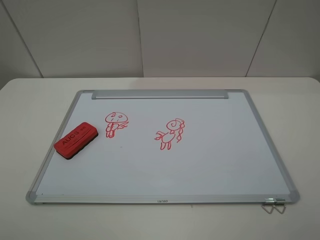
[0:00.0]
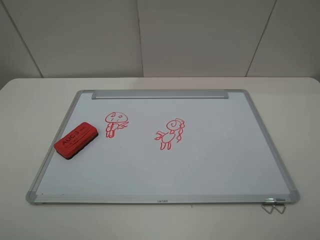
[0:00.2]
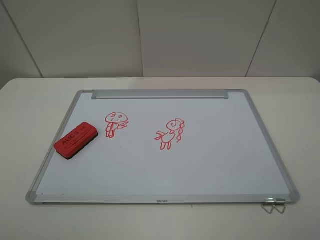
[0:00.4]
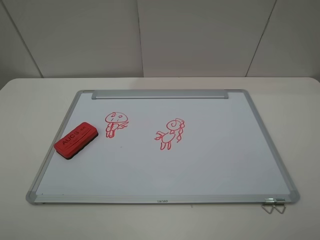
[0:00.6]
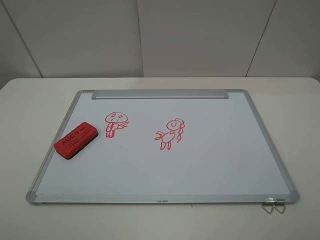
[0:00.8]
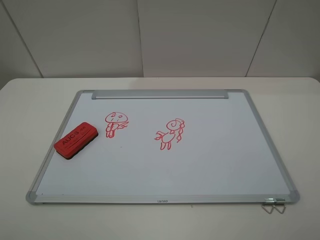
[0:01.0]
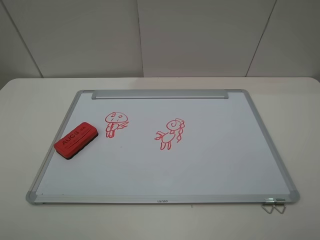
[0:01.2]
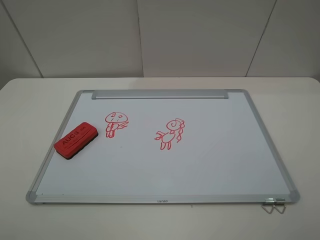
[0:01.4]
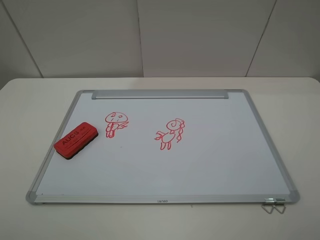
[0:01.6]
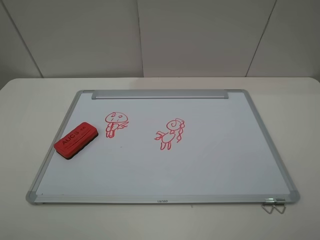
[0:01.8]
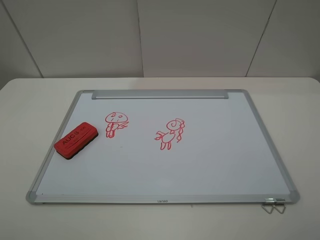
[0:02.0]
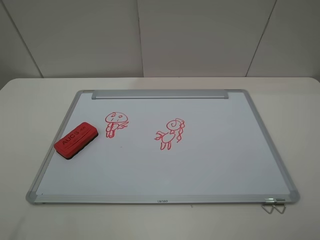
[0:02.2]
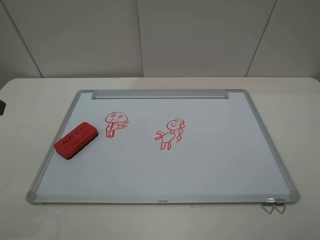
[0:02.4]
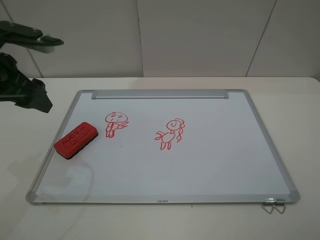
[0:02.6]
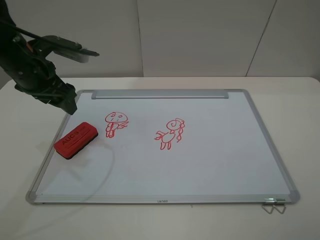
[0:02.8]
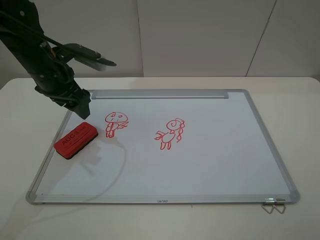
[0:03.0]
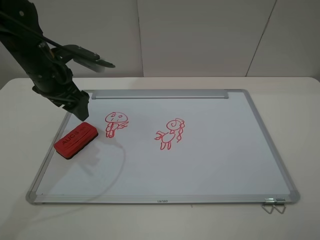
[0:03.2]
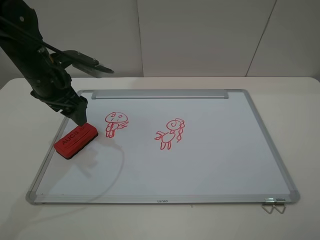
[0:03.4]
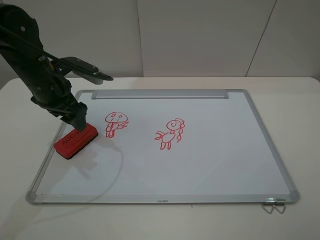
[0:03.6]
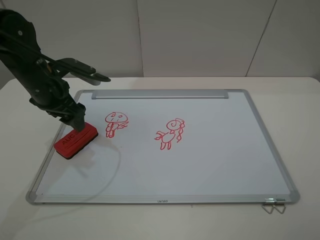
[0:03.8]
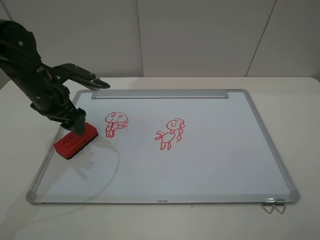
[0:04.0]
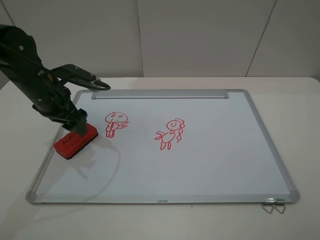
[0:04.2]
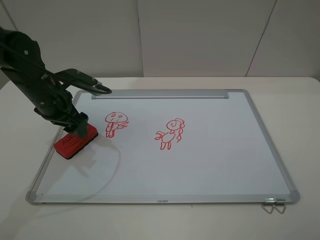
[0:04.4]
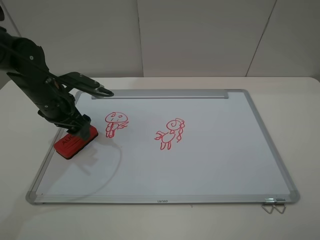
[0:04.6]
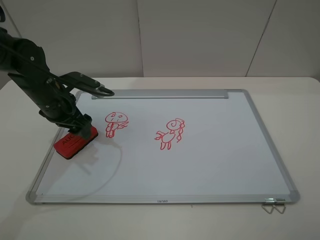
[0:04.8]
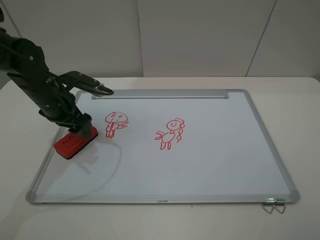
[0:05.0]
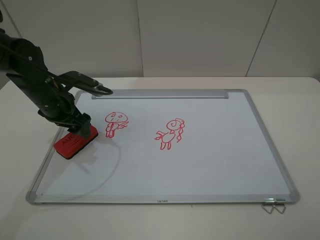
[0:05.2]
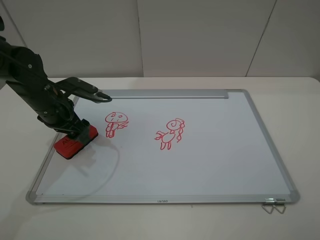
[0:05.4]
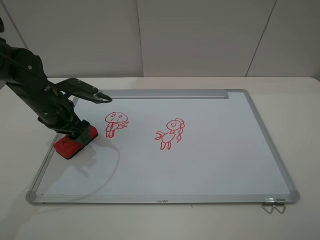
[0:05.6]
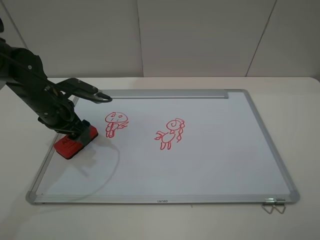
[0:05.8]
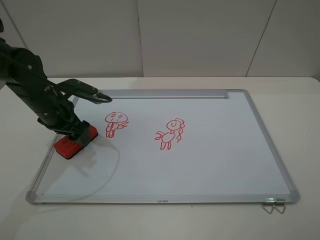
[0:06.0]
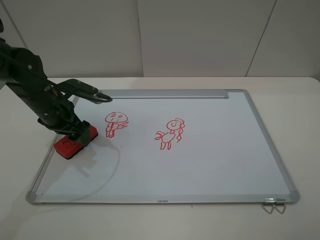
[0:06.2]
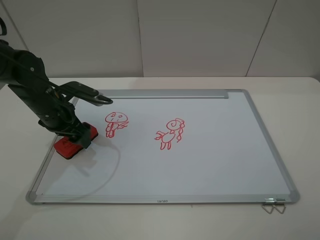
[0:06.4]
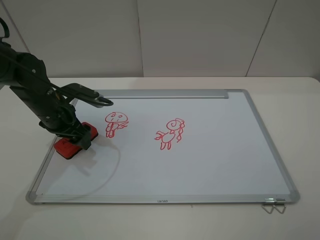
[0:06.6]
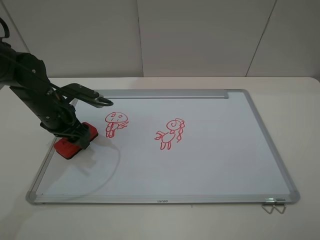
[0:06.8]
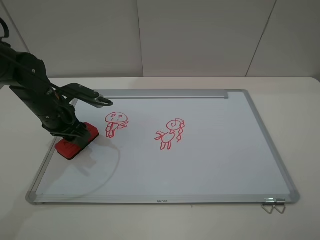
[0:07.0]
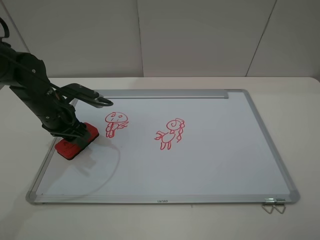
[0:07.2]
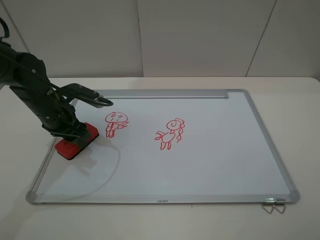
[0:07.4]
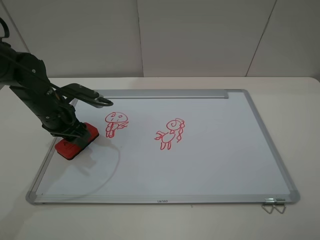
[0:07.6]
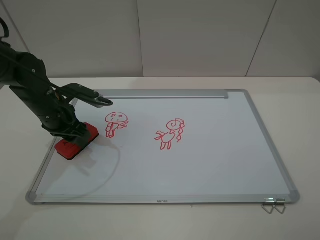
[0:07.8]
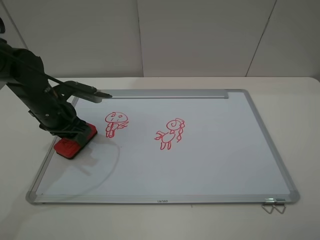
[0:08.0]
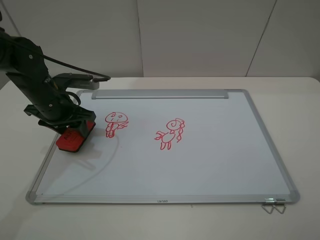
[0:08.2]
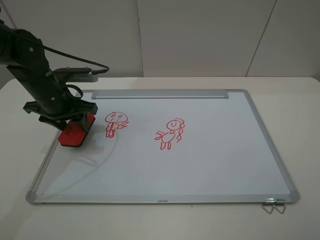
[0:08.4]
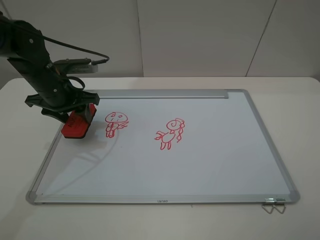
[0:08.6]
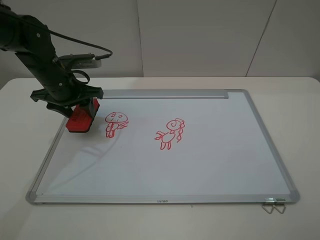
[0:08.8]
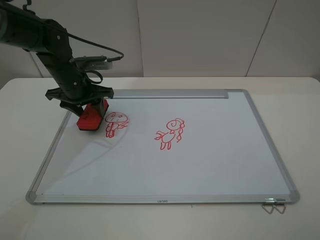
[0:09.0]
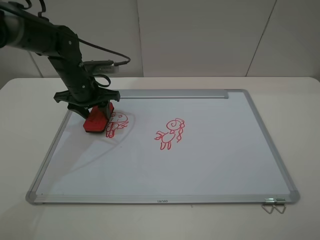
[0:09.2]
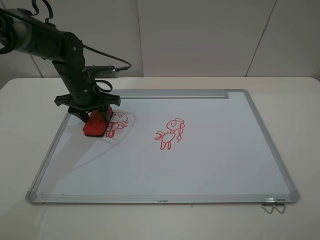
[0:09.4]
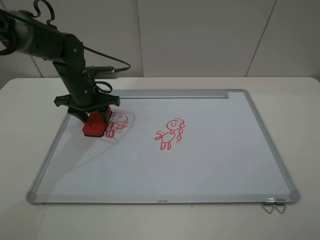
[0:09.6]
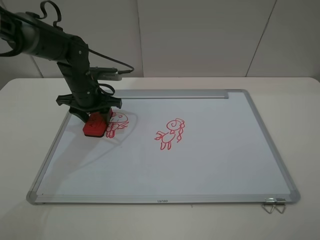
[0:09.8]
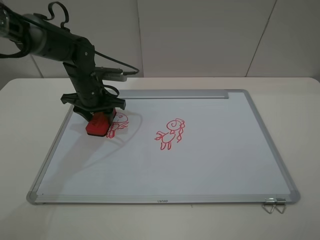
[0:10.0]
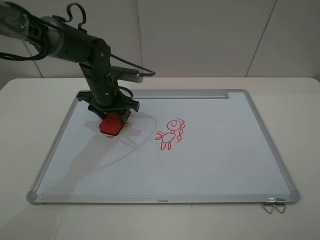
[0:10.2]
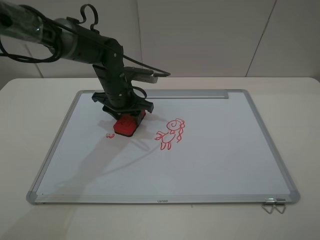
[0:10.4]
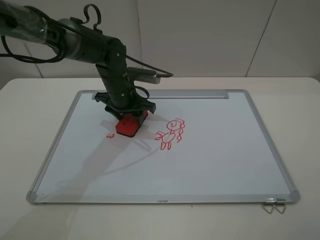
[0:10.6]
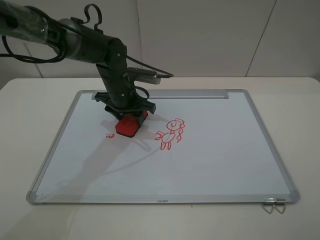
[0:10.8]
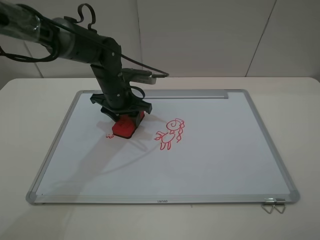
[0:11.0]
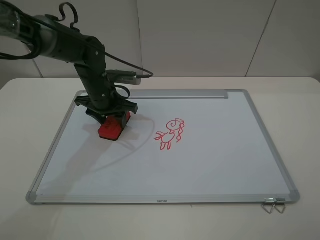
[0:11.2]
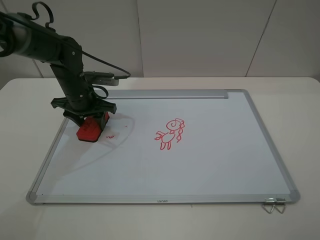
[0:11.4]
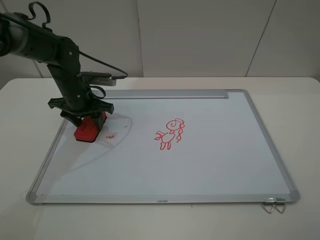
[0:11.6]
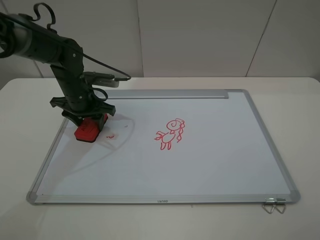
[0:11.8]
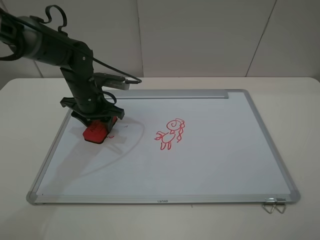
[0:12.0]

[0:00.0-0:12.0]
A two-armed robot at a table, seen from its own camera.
Step, 0:00.0 to 0:06.8: Grasp the eraser with the left gripper.
0:00.0 to 0:01.6: Both grippers stay put.
0:01.6 to 0:03.0: The left gripper shifts roughly 35 cm forward.
0:03.0 to 0:04.4: The left gripper is displaced downward by some 5 cm.
0:04.4 to 0:06.0: The grippers stay close to where they were, moving slightly.
0:06.0 to 0:07.6: The left gripper closes up.
0:07.6 to 0:09.0: The left gripper moves forward, approximately 5 cm.
0:09.0 to 0:10.4: The left gripper travels to the right by approximately 10 cm.
0:10.4 to 0:12.0: The left gripper moves to the left, approximately 5 cm.

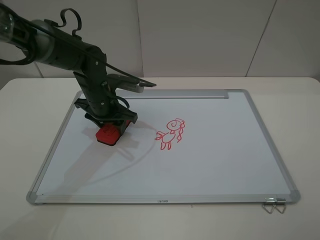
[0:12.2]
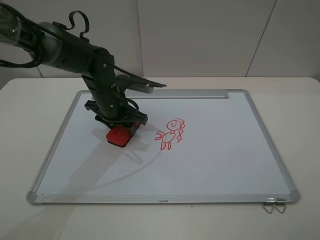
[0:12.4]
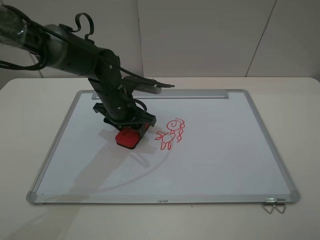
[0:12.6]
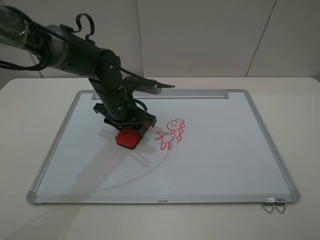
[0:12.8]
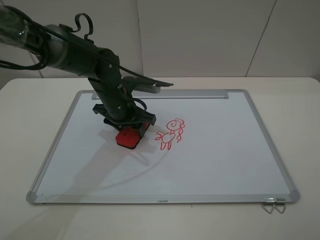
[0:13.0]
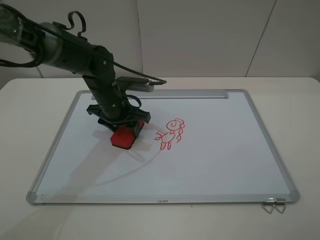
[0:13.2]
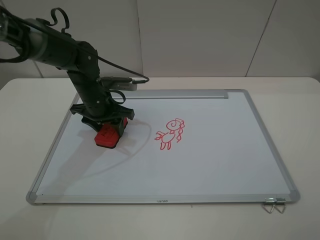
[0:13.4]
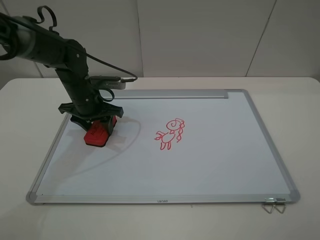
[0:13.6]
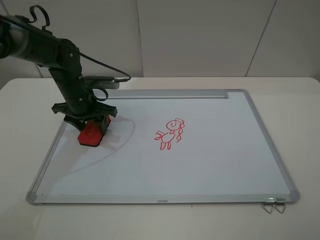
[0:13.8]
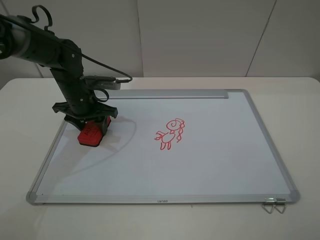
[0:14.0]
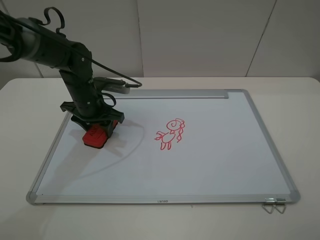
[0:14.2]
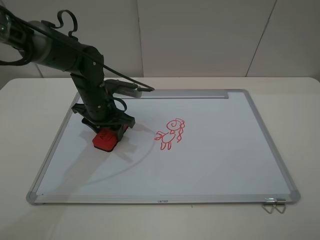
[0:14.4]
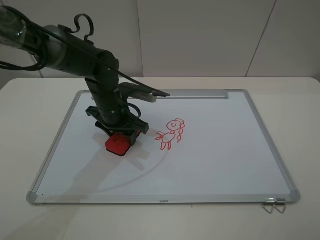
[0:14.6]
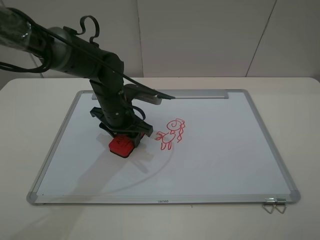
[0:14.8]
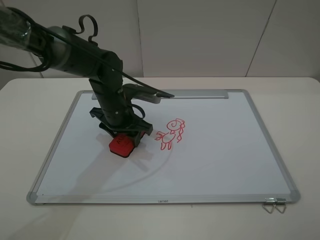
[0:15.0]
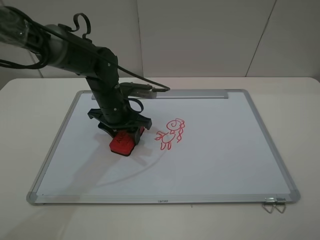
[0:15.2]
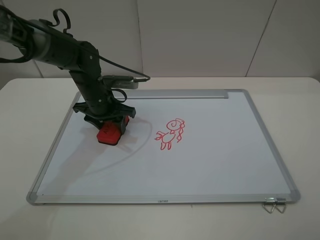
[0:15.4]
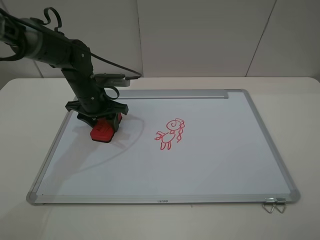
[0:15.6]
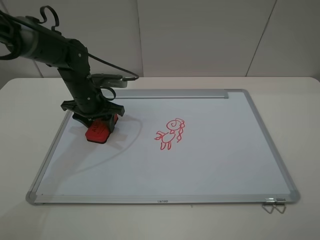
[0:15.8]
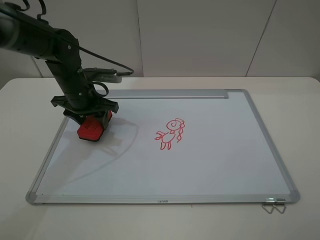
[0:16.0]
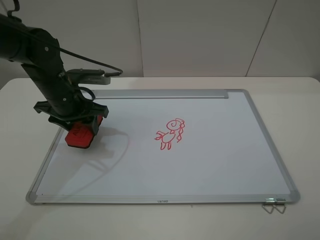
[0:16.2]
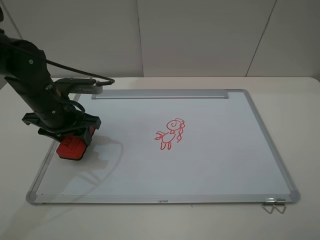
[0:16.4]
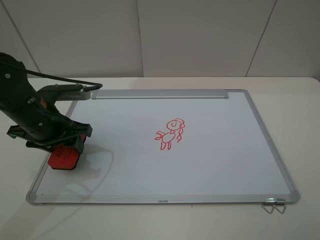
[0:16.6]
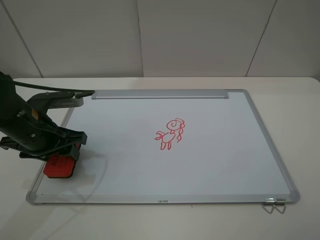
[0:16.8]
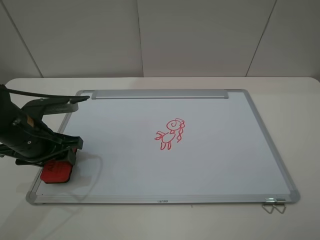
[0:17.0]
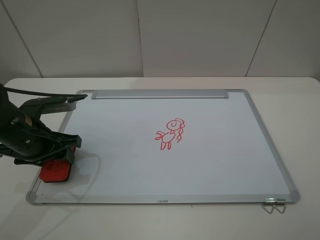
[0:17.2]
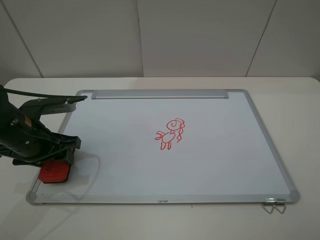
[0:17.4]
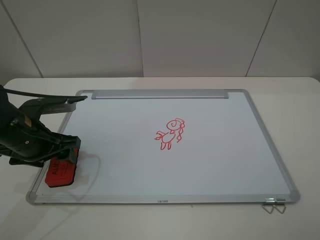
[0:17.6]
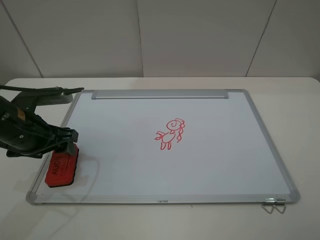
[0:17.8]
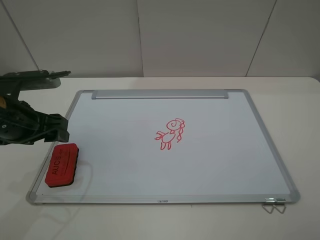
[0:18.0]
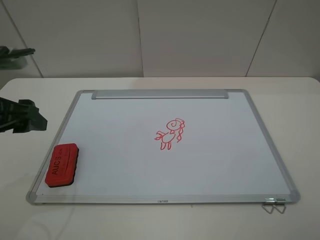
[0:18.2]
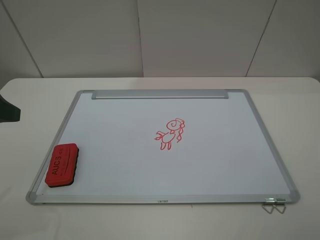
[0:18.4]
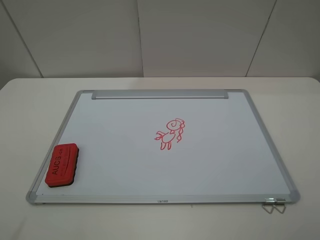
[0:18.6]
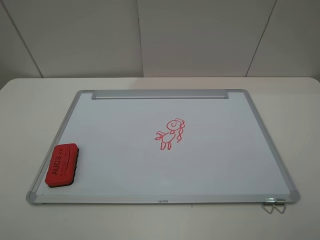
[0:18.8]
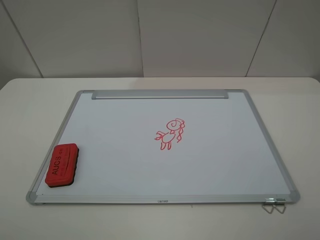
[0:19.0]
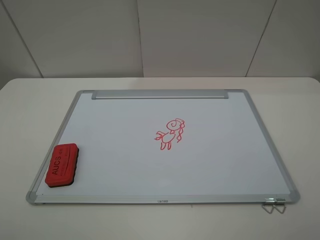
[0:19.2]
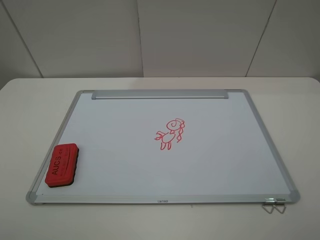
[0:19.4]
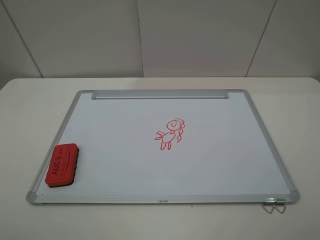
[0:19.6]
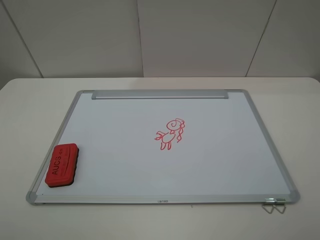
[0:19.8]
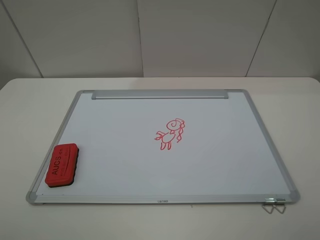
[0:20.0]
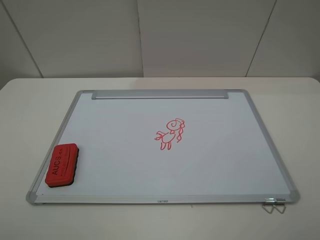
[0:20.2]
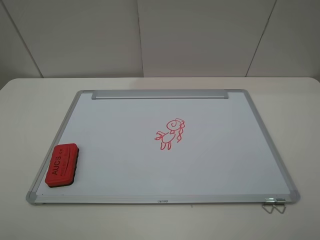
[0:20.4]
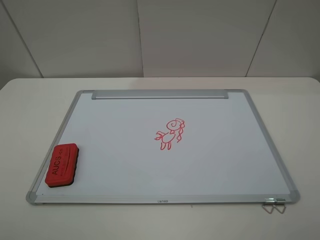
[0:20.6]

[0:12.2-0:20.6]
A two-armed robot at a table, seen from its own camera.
Step, 0:12.2 to 0:16.0: Grasp the eraser and wipe the blackboard with the left gripper.
Step, 0:16.2 to 0:17.8: Place the eraser with the left gripper.
0:12.2 to 0:13.6: The left gripper travels to the left by approximately 5 cm.
0:13.6 to 0:15.0: The left gripper goes about 10 cm to the right.
0:15.0 to 0:16.4: The left gripper is displaced to the left and upward by roughly 10 cm.
0:16.4 to 0:17.8: The left gripper travels backward by roughly 5 cm, and opens up.
0:17.8 to 0:19.2: The left gripper travels backward and upward by some 25 cm.
